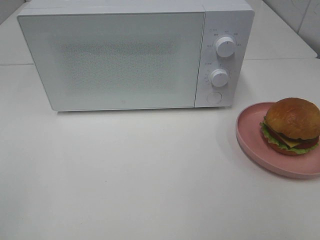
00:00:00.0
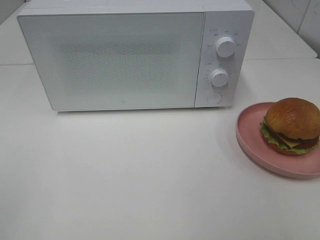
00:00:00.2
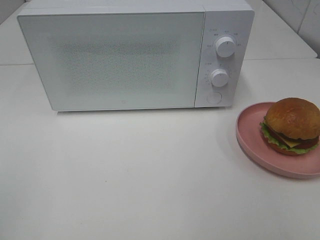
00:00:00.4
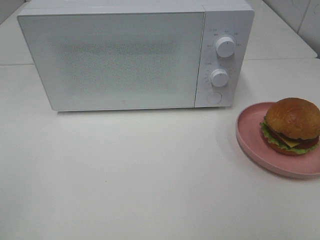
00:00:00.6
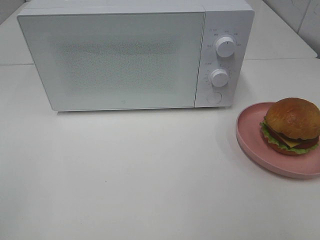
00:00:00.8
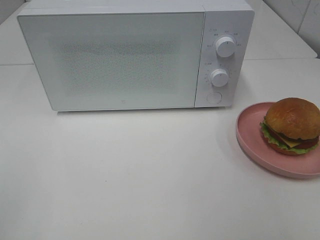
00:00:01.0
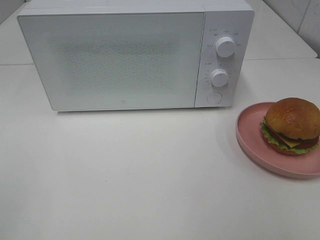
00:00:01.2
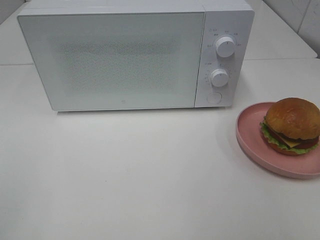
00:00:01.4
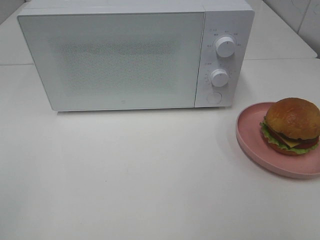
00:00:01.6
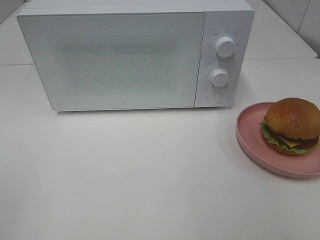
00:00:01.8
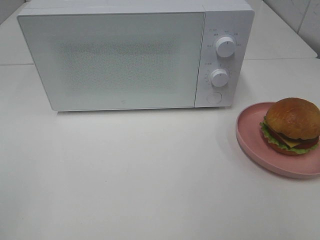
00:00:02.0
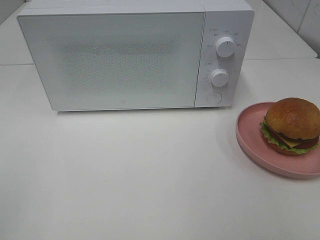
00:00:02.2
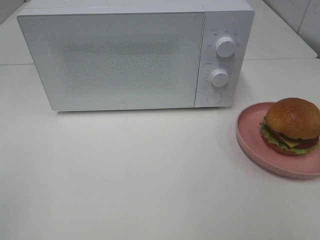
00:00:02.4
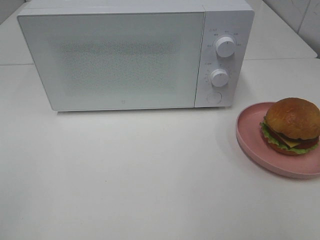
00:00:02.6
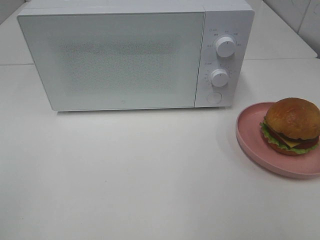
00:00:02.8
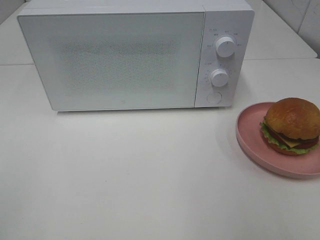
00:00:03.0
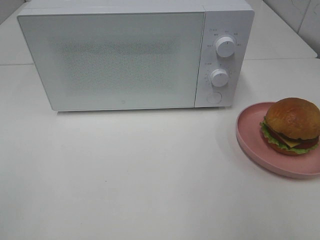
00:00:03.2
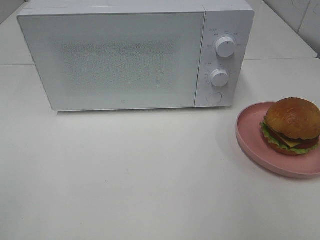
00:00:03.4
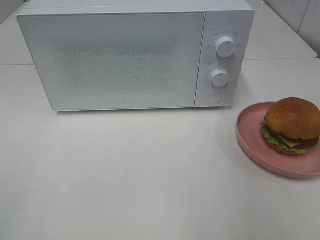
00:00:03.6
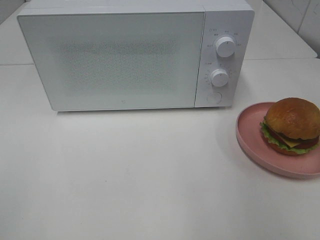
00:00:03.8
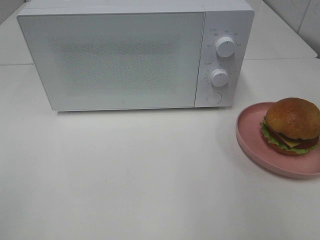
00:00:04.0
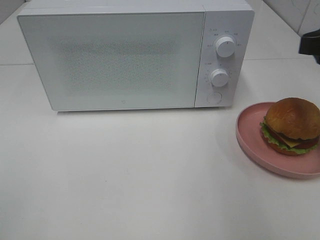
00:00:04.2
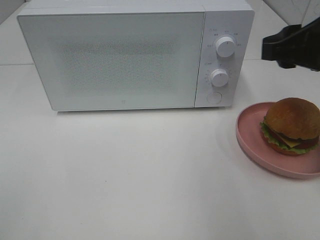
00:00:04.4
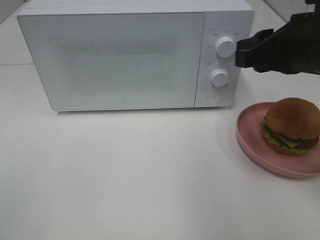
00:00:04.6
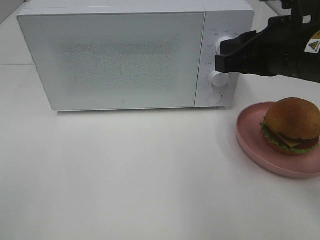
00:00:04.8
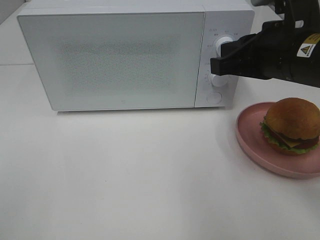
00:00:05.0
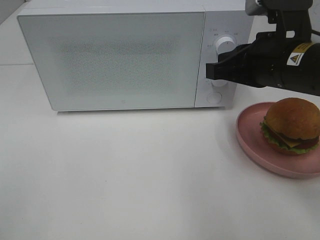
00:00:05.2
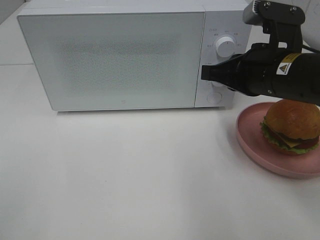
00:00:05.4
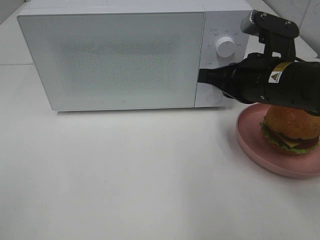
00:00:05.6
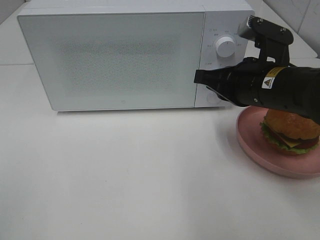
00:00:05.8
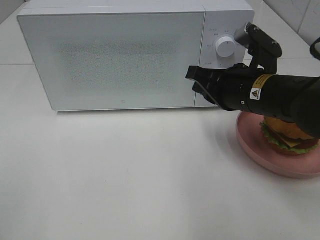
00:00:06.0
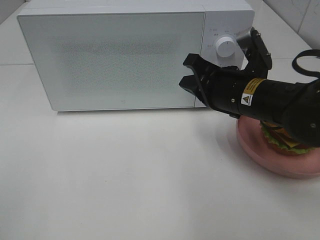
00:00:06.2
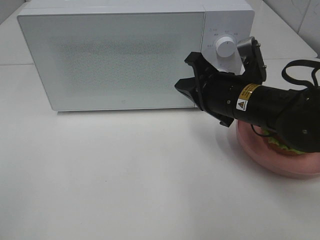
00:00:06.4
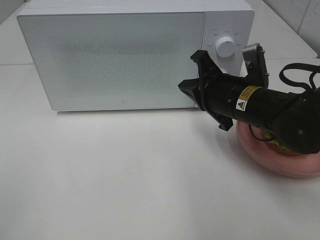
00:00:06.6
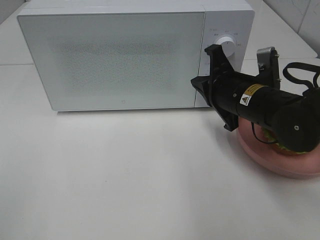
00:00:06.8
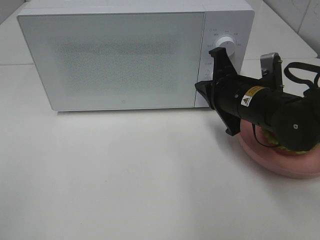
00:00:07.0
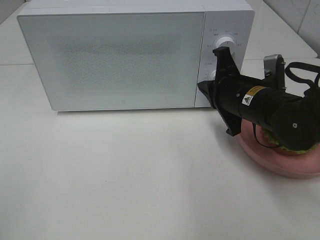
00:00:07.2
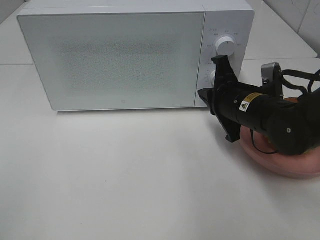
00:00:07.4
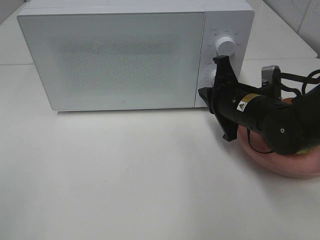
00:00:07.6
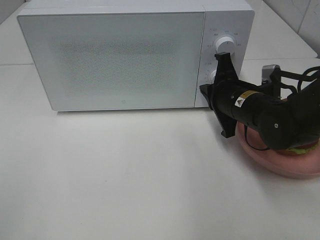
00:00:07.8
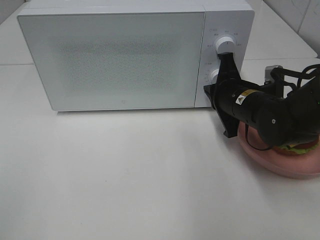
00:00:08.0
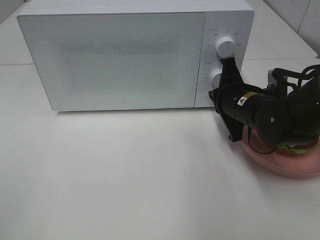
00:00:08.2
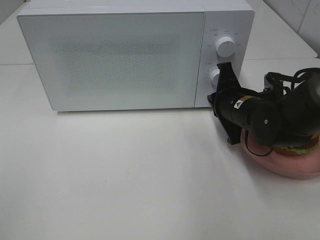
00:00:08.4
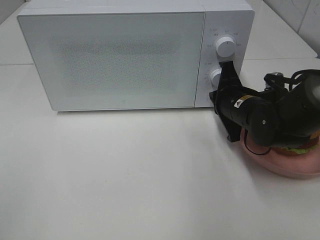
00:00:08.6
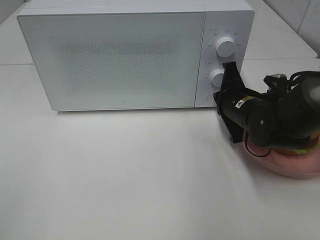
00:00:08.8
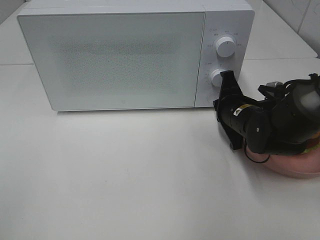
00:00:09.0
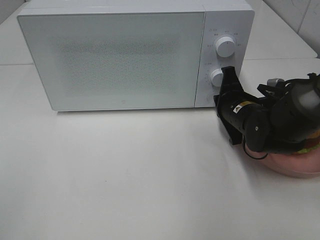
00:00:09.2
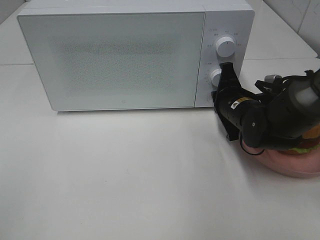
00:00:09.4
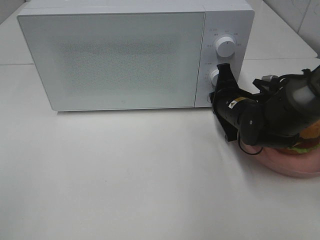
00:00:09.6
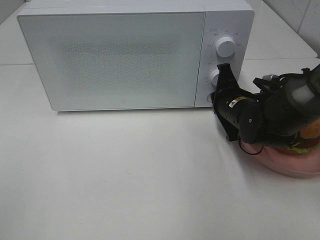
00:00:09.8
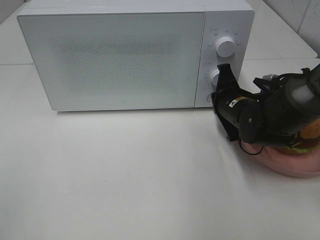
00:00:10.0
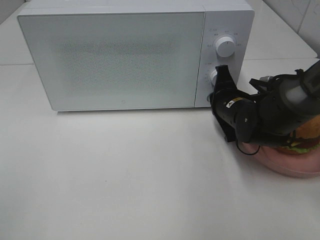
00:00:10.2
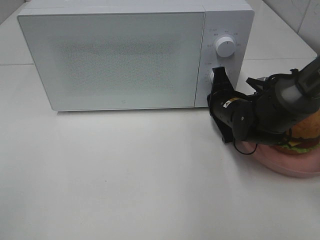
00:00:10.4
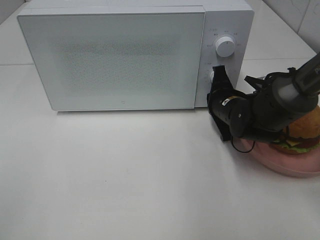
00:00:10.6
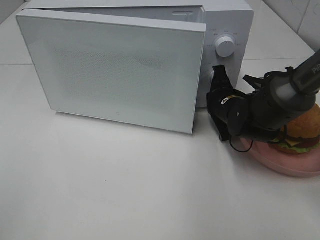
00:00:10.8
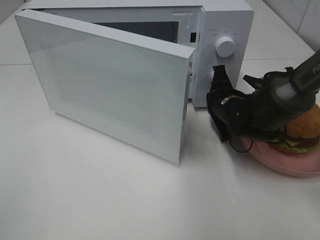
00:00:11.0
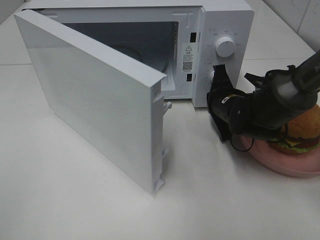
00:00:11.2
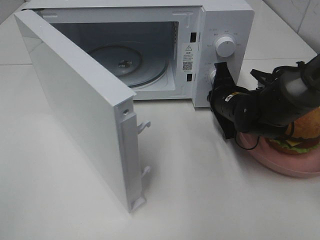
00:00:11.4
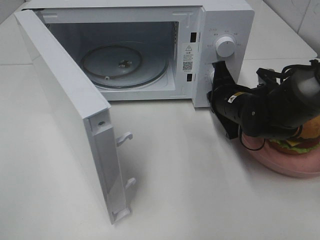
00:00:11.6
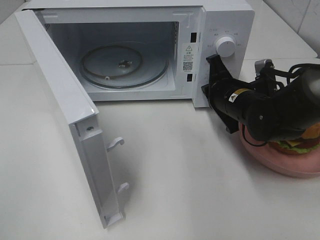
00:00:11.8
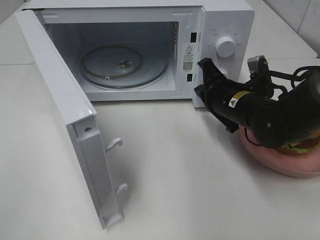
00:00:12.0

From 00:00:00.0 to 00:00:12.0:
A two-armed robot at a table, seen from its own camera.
Task of the whole recording: Heat the burger.
Step, from 00:00:00.0 to 00:00:11.6: Right hand: press the switch.
From 00:00:00.0 to 00:00:01.6: Both grippers stay about where they are.
From 00:00:03.0 to 00:00:04.4: The right gripper shifts about 20 cm forward and to the left.
From 00:00:04.4 to 00:00:06.0: The right gripper heads downward and to the left, covering roughly 10 cm, and closes.
From 00:00:06.0 to 00:00:07.6: The right gripper is displaced downward by roughly 5 cm.
From 00:00:07.6 to 00:00:09.0: The grippers move only a little.
From 00:00:09.0 to 00:00:10.4: There are only small adjustments of the grippers.
From 00:00:10.4 to 00:00:12.0: The right gripper moves some 5 cm.

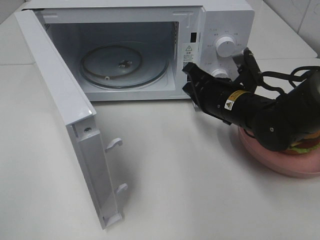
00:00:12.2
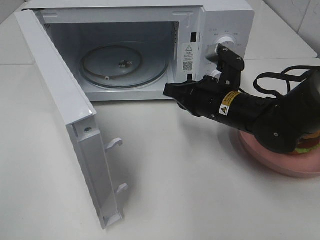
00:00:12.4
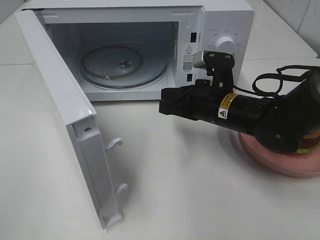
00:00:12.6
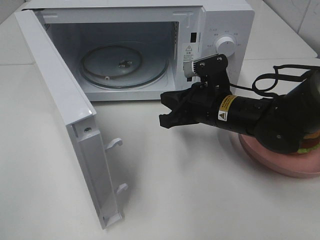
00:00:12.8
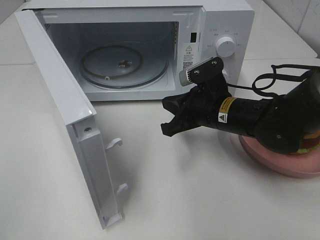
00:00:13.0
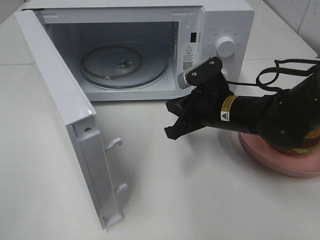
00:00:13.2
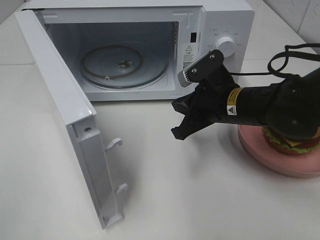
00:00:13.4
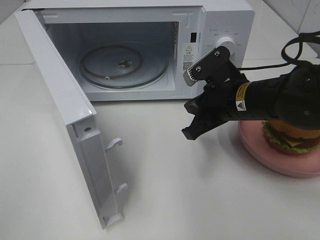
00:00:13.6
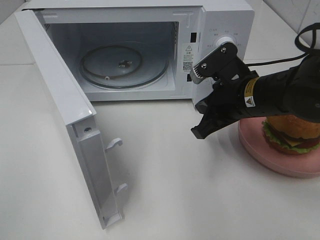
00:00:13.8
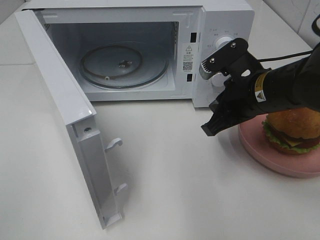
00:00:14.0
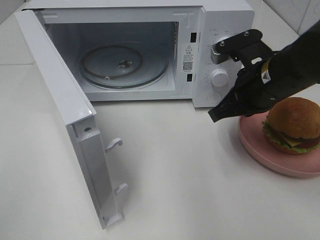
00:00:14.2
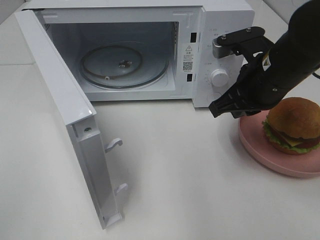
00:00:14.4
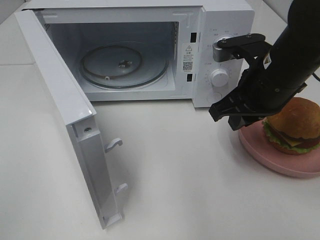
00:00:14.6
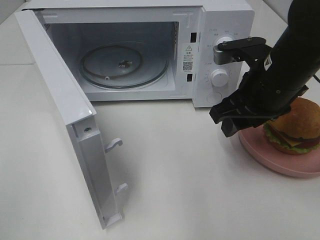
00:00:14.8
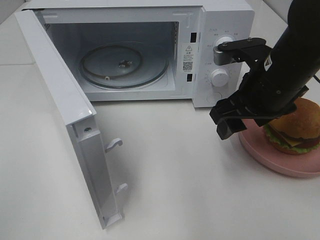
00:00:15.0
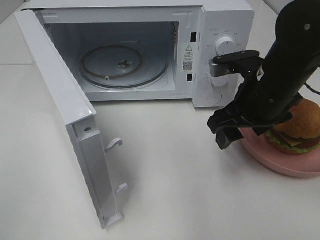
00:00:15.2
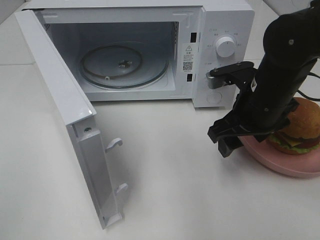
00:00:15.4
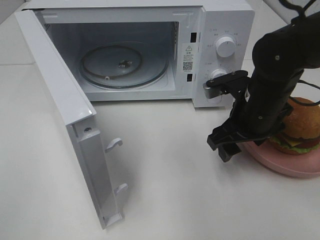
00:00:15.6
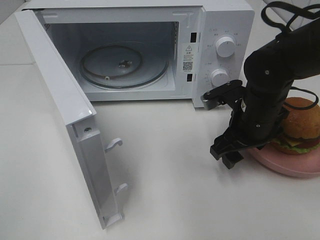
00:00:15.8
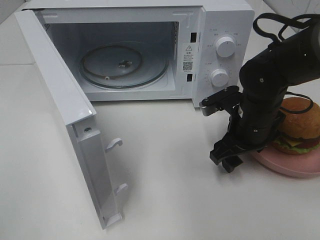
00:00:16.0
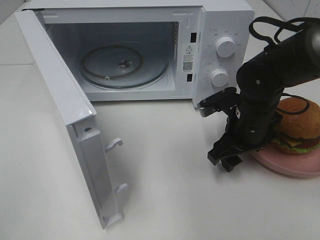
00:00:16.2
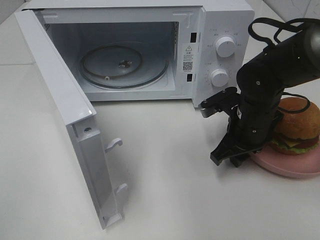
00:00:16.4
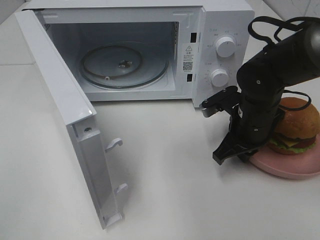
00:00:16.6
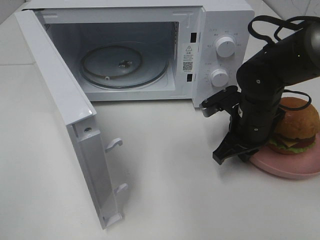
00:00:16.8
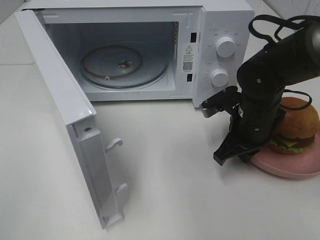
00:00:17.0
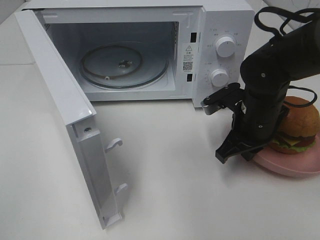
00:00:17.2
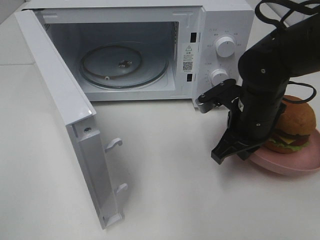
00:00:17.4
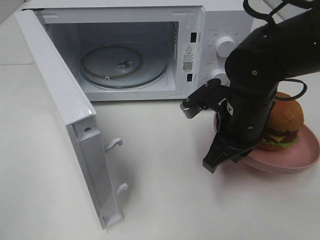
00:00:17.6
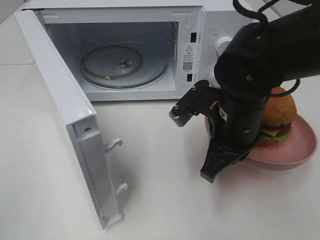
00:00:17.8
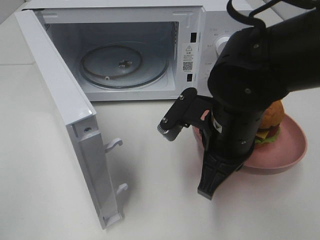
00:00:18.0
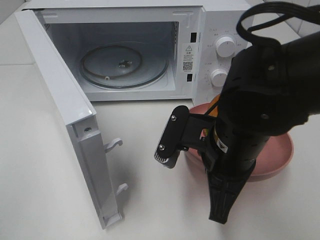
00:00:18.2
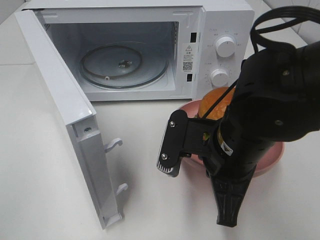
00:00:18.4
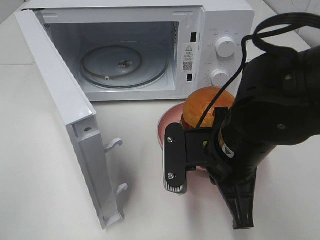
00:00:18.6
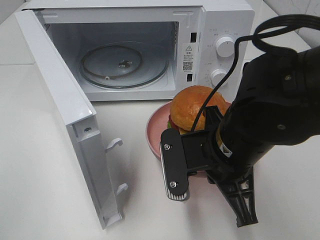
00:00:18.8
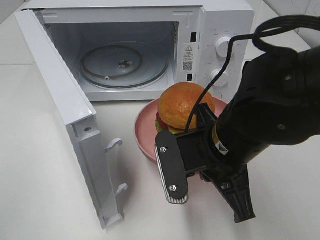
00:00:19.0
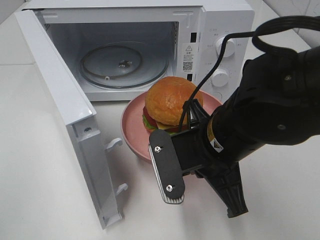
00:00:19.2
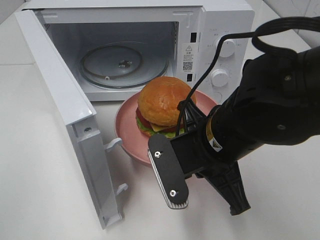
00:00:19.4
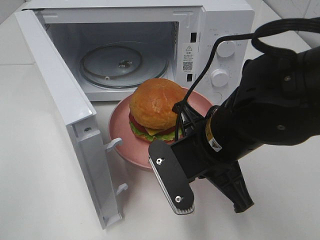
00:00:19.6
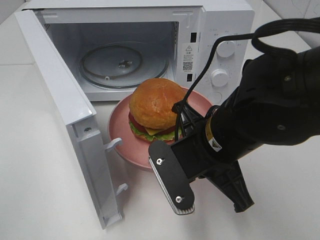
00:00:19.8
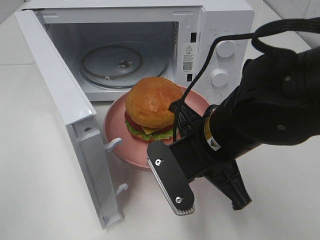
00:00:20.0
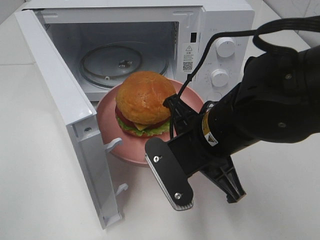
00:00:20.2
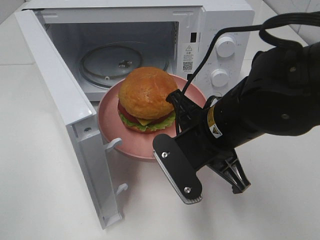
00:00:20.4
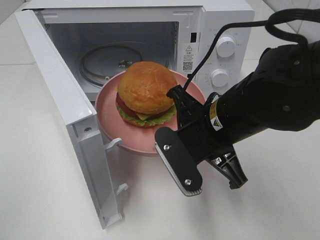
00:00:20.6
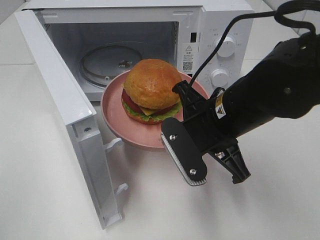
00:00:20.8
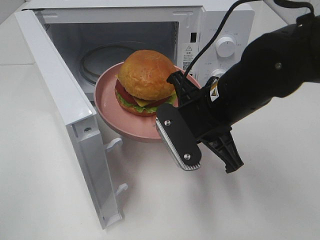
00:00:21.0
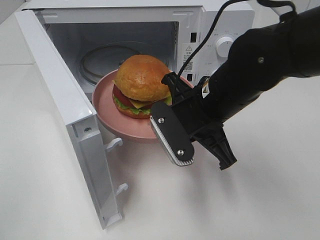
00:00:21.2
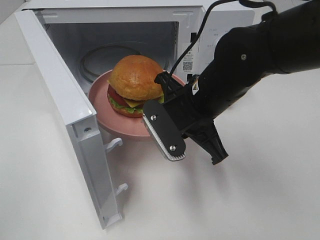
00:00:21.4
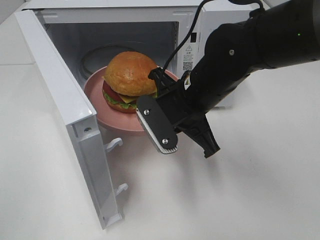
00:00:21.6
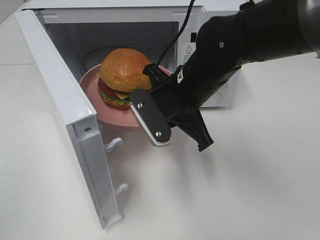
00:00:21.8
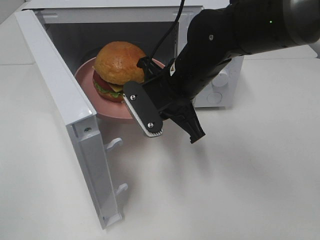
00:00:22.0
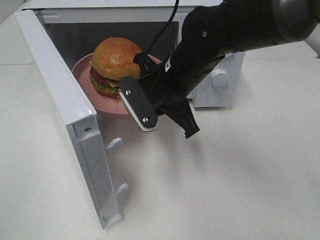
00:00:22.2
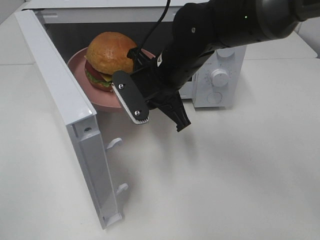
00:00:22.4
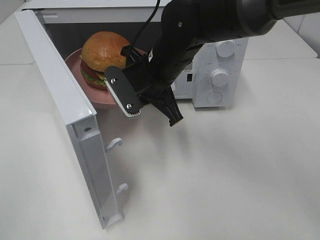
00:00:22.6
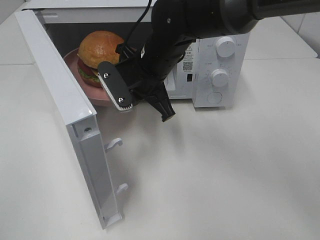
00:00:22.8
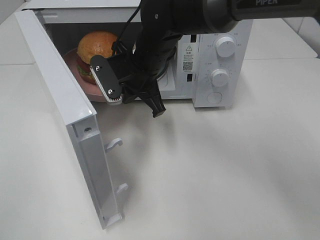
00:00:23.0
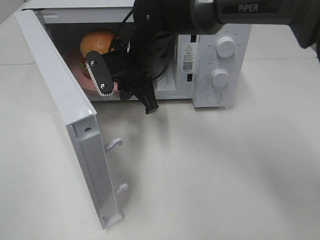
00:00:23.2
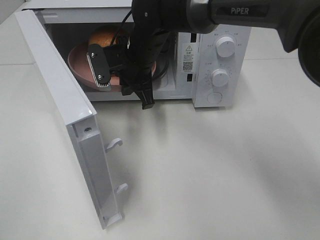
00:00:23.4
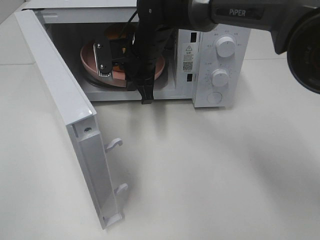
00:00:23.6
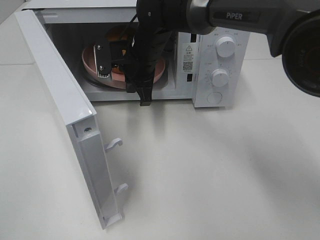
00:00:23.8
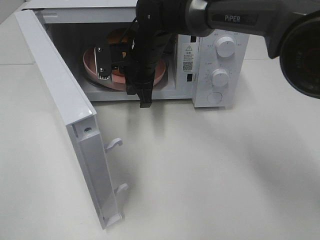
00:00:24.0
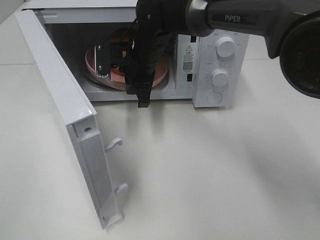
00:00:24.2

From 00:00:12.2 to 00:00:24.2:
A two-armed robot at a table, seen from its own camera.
Task of the whole recording: Heat the burger.
Step, from 00:00:12.2 to 00:00:16.6: Right hand: grab the plate with the hamburger.
From 00:00:12.2 to 00:00:13.8: The right gripper changes place by roughly 5 cm.
From 00:00:13.8 to 00:00:15.2: The right gripper opens.
From 00:00:15.2 to 00:00:16.6: The right gripper shifts some 10 cm downward, and closes its fingers.
From 00:00:16.6 to 00:00:18.2: The right gripper goes roughly 15 cm backward, to the left and upward.
From 00:00:19.8 to 00:00:21.2: The right gripper goes some 5 cm forward.
From 00:00:21.2 to 00:00:22.6: The right gripper moves forward and to the left, roughly 10 cm.
From 00:00:22.6 to 00:00:24.2: The right gripper travels forward by approximately 10 cm.
